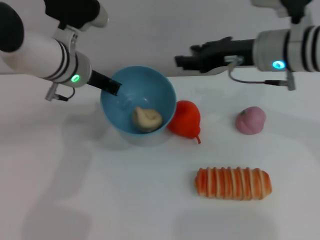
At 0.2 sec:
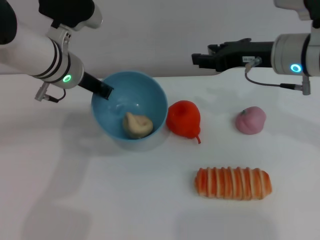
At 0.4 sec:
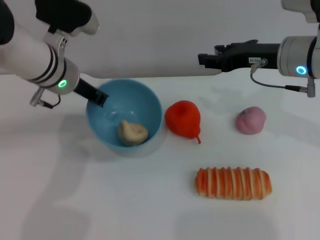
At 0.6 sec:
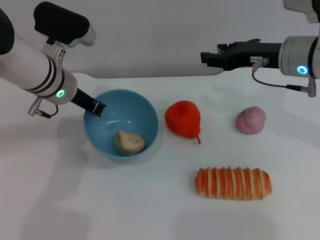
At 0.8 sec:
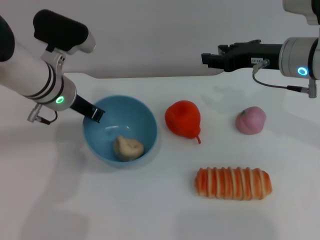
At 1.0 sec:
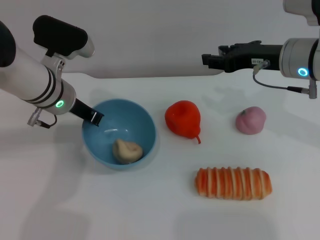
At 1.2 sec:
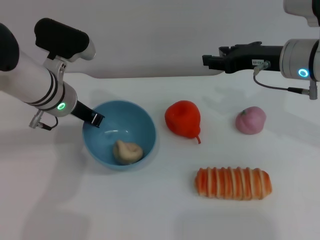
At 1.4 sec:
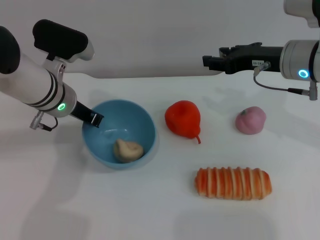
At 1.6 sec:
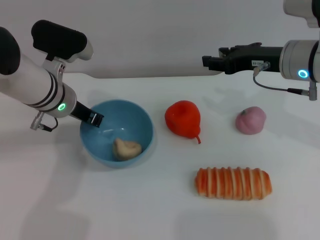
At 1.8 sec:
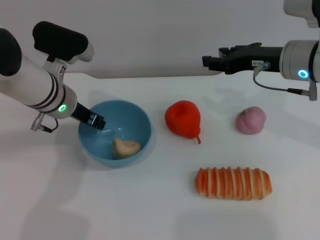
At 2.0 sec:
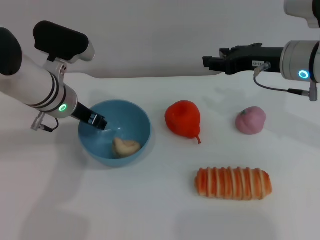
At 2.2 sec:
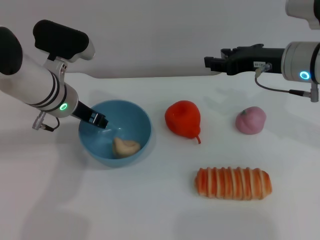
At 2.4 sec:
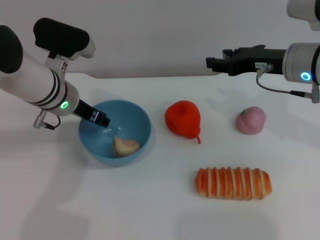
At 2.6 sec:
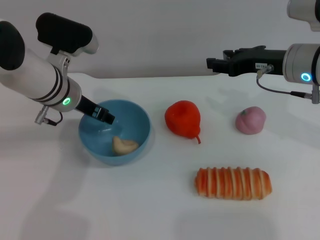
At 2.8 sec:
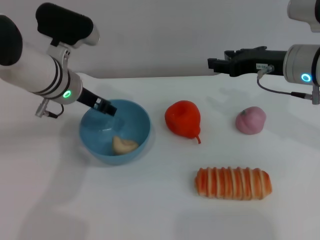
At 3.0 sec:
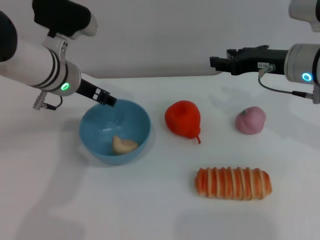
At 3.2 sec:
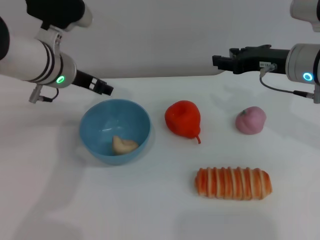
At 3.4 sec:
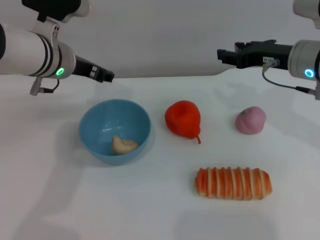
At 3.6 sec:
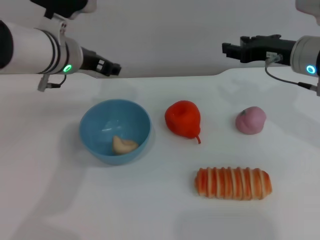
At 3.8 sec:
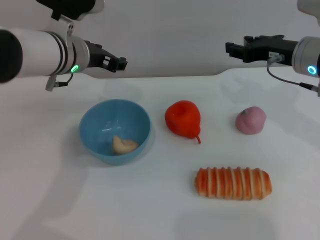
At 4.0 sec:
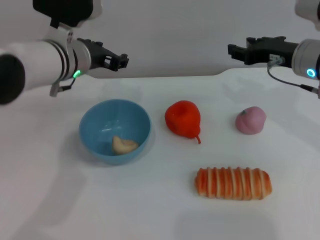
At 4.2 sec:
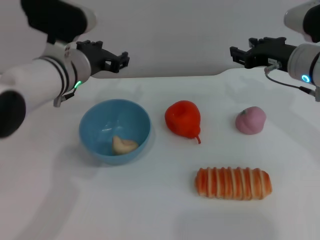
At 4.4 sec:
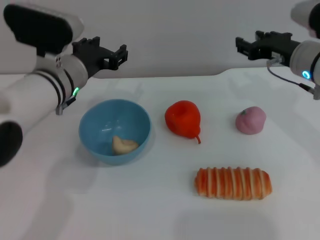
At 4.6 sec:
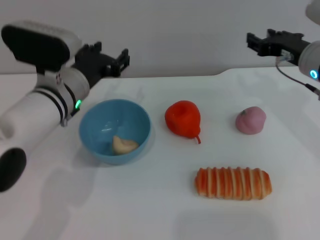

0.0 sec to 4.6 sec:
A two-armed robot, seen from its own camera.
Task of the whole recording: put the egg yolk pastry into the blue bowl and pour it out repeatedly.
Step, 0.0 sec to 3.6 sec: Place the bowl on the table.
1.6 sec to 3.0 sec: The left gripper opens up.
3.0 sec to 4.6 sec: The left gripper shifts by roughly 5 cm.
